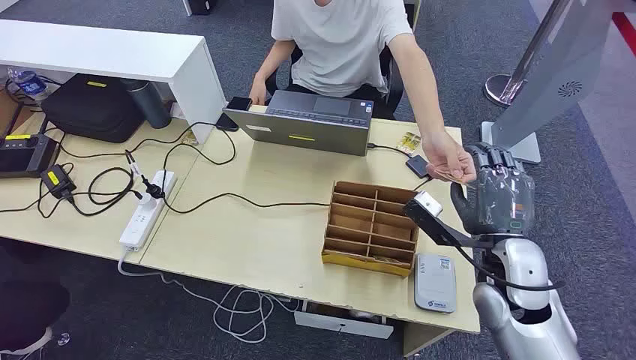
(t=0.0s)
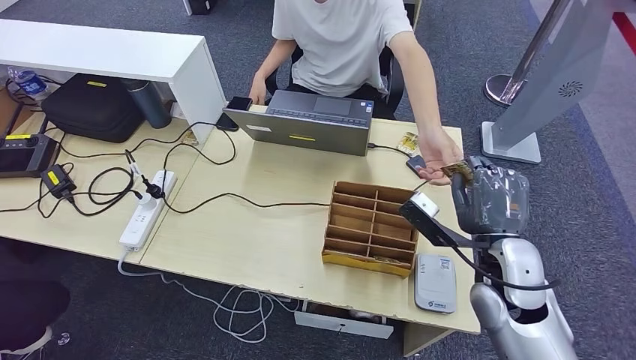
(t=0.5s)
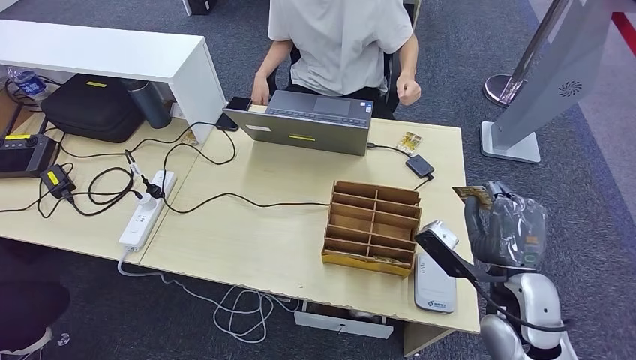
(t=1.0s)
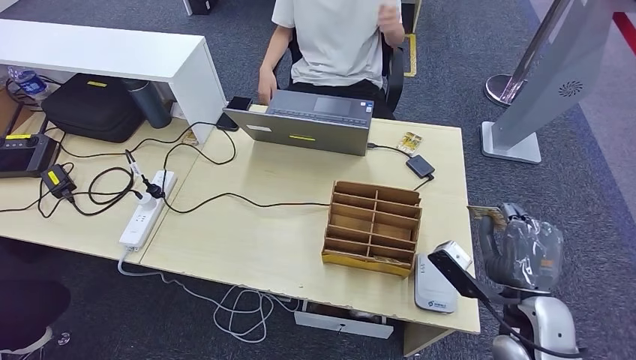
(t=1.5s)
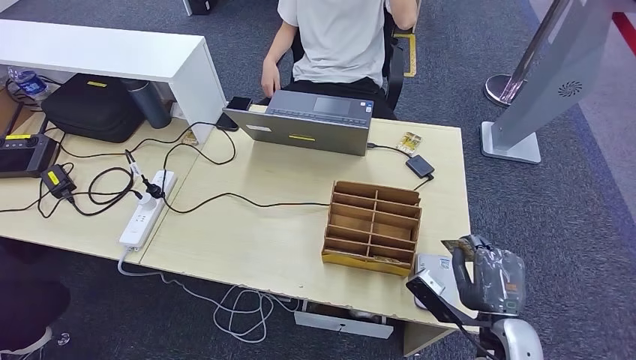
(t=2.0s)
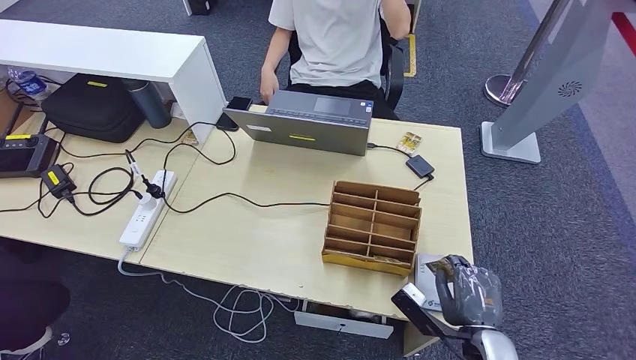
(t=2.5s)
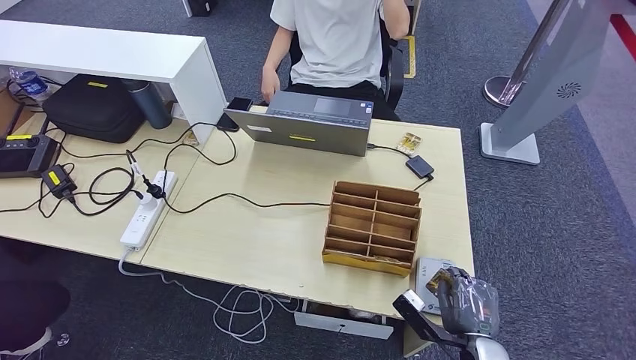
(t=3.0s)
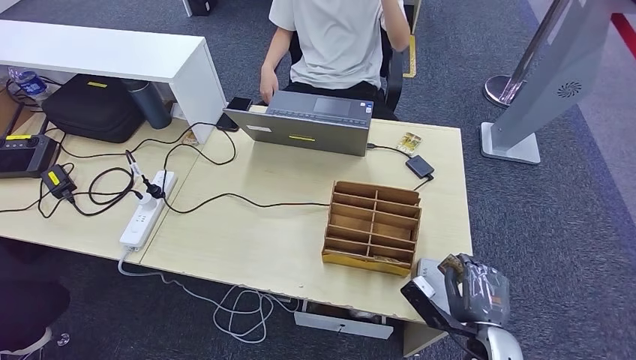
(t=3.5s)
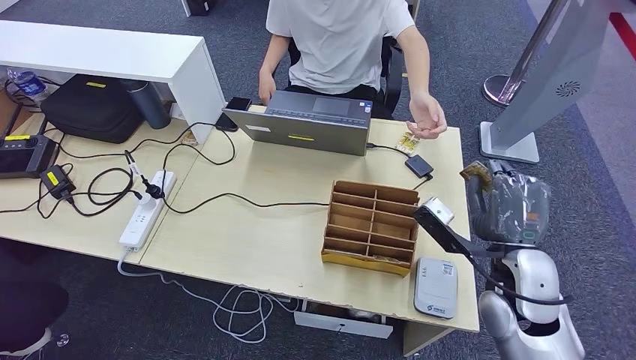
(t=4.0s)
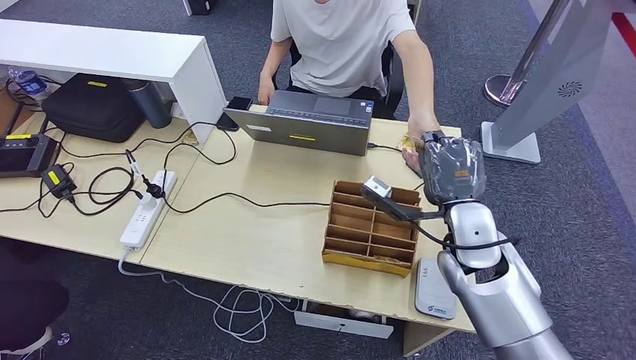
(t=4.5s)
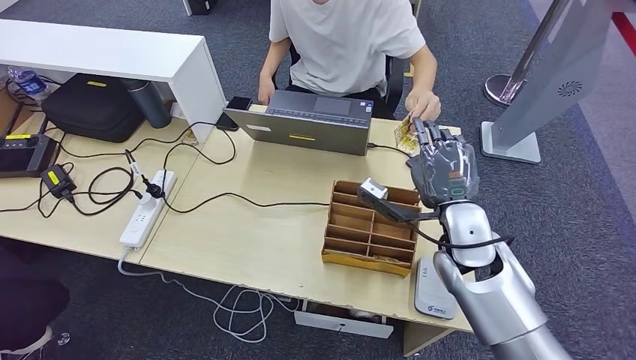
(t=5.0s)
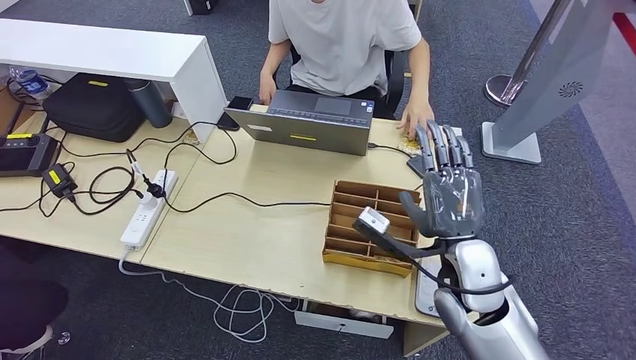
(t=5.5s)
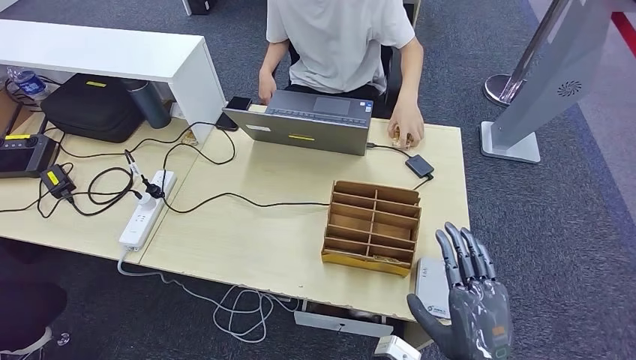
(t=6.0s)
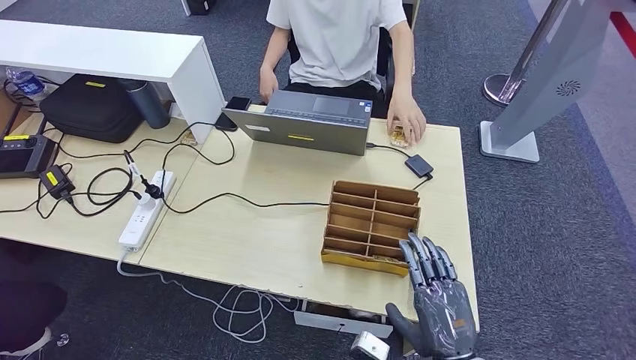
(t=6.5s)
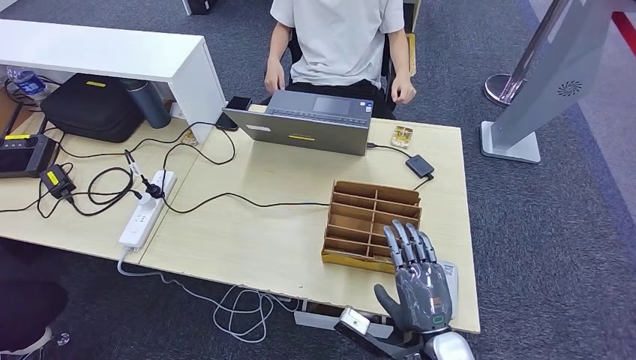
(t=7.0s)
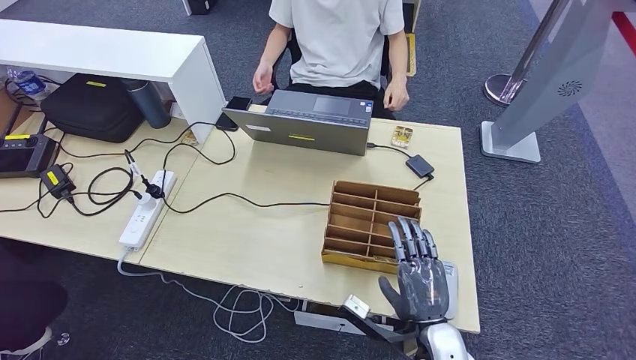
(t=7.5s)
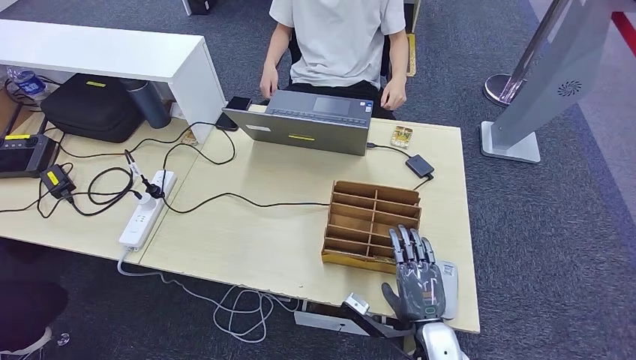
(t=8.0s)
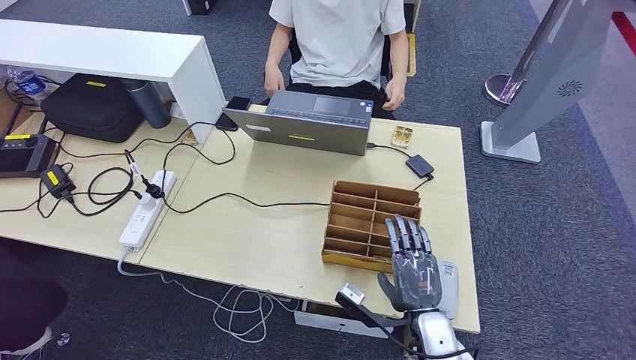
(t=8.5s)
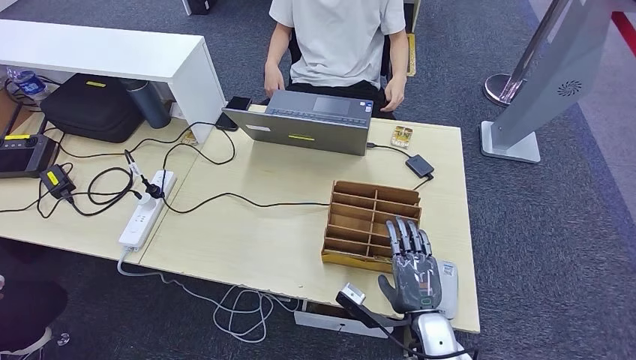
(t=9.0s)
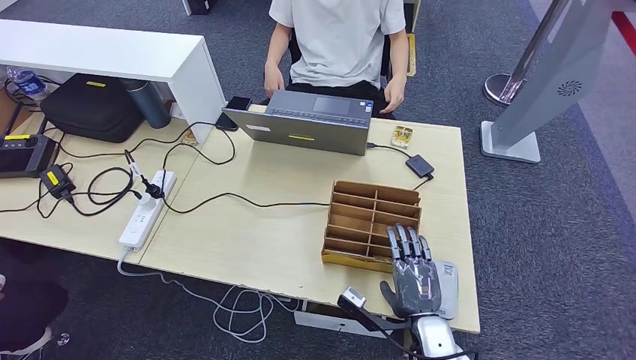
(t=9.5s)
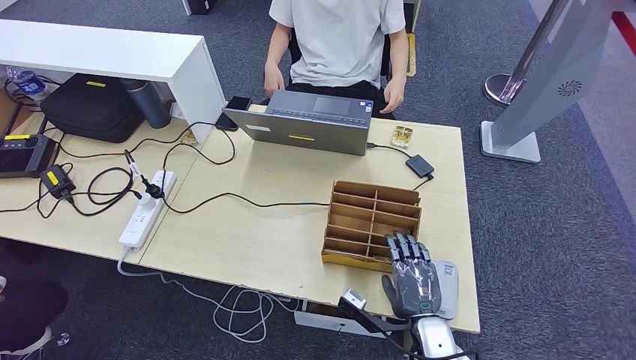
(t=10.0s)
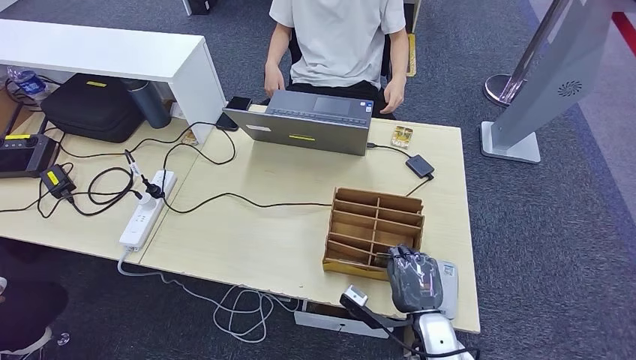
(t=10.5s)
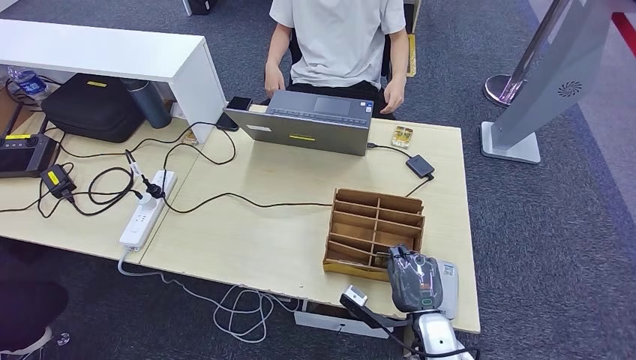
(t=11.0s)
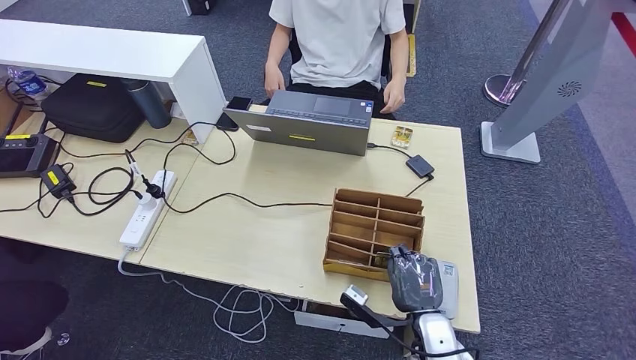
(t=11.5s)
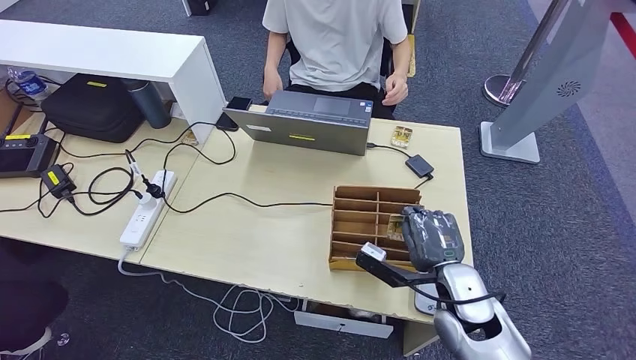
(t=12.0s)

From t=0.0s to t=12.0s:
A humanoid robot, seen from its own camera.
Step, from t=0.0s to t=1.5s: Take the ID card from the person's hand.
Step, from t=2.0s to t=4.0s: Place the ID card on the card reader.
Step, from t=4.5s to t=7.0s: Hand the ID card to the person.
From t=2.0s to t=4.0s: The right hand is displaced upward and forward by some 15 cm.
From t=4.0s to t=6.0s: The right hand is displaced backward by roughly 15 cm.
From t=6.0s to t=8.0s: The right hand heads downward and forward, covering approximately 15 cm.
From t=8.0s to t=10.0s: There are only small adjustments of the hands.
From t=10.0s to t=12.0s: The right hand travels upward and forward by about 10 cm.

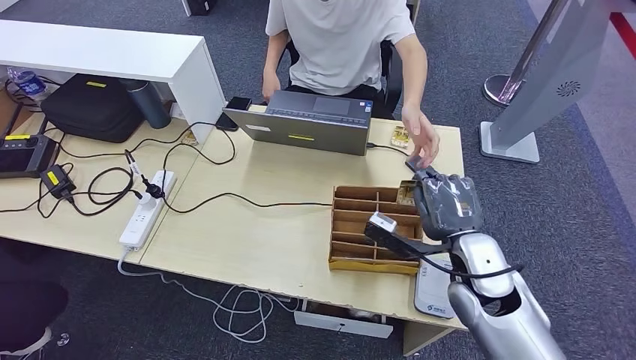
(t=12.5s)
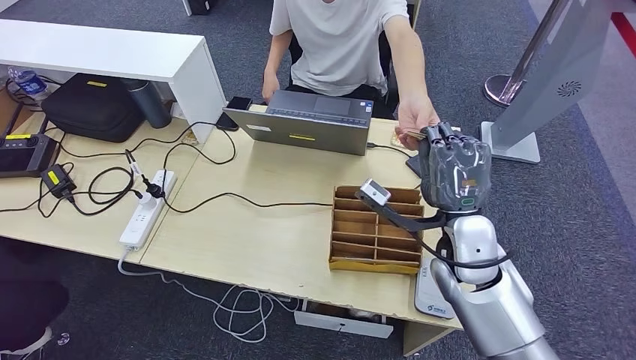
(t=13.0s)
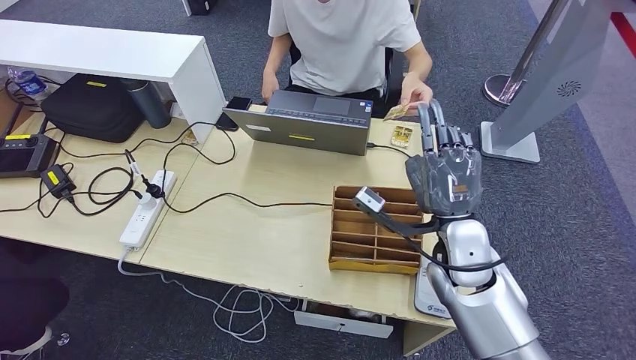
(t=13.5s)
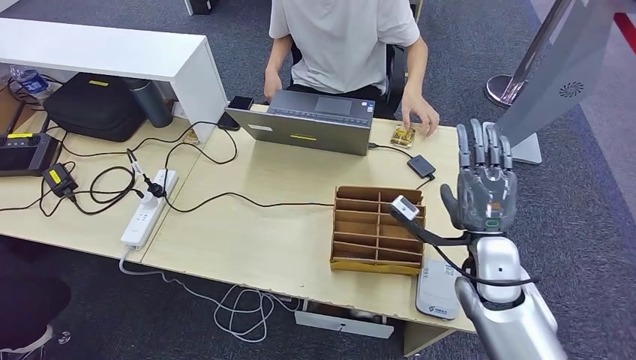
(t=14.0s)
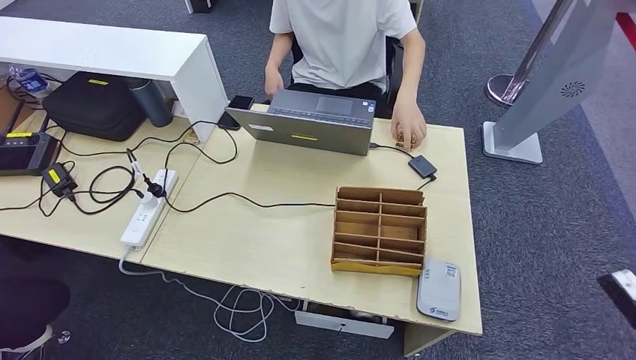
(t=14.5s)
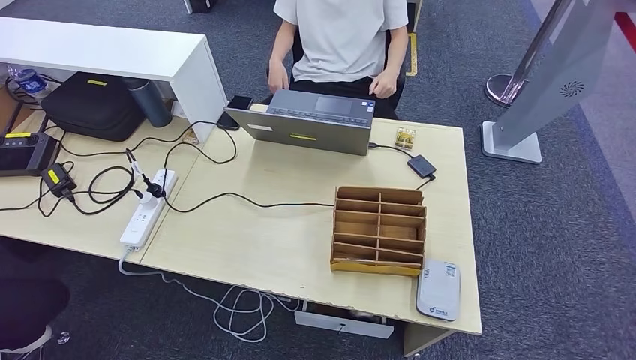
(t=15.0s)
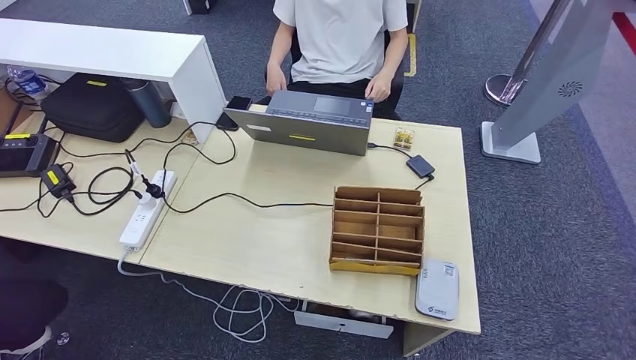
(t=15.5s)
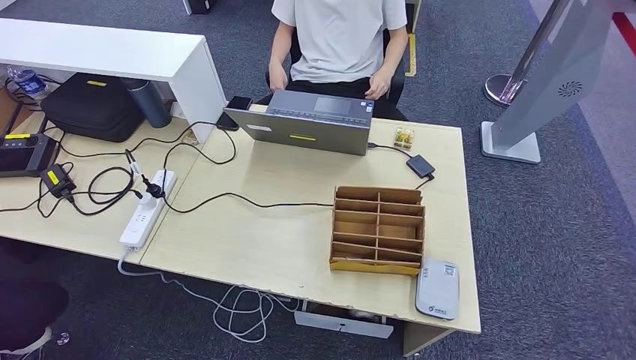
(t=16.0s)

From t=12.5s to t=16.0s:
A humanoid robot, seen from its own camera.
Step, from t=12.5s to t=16.0s: Hand the room key to the person.
From t=12.5s to t=14.5s: The right hand moves to the right and backward, about 35 cm.
From t=14.5s to t=16.0s: The right hand travels downward, to the left and backward by some 40 cm.

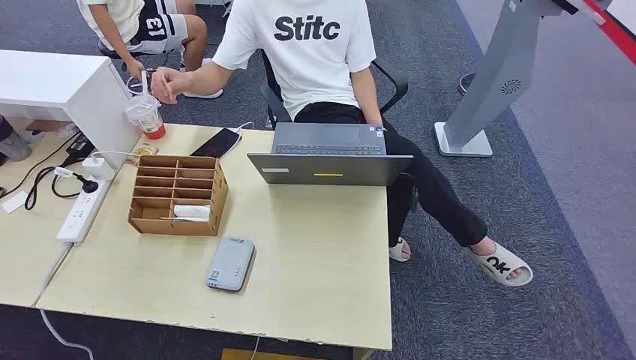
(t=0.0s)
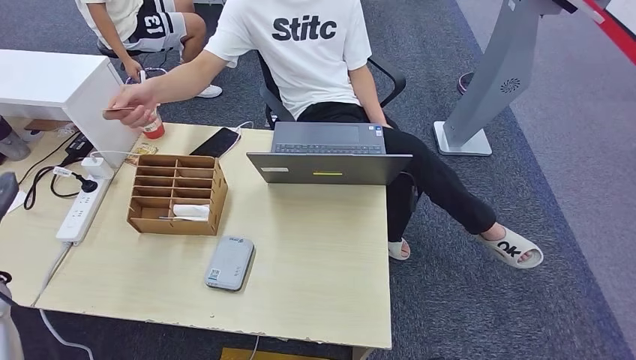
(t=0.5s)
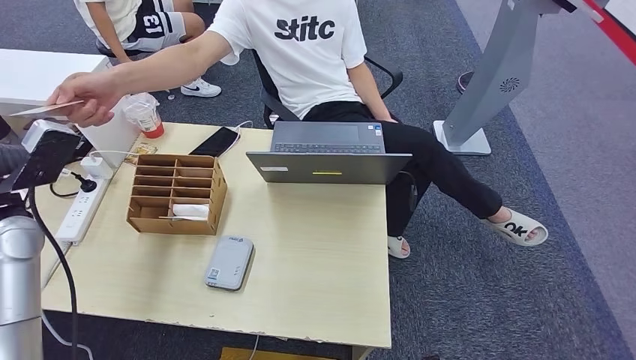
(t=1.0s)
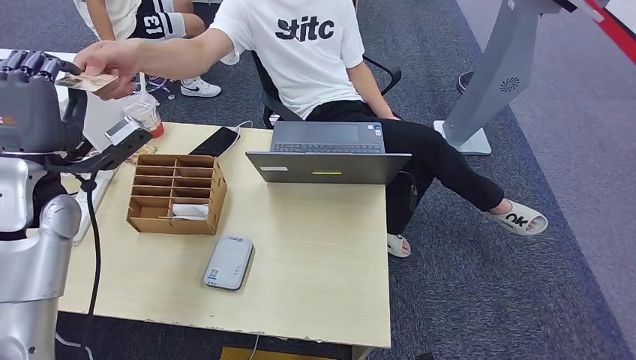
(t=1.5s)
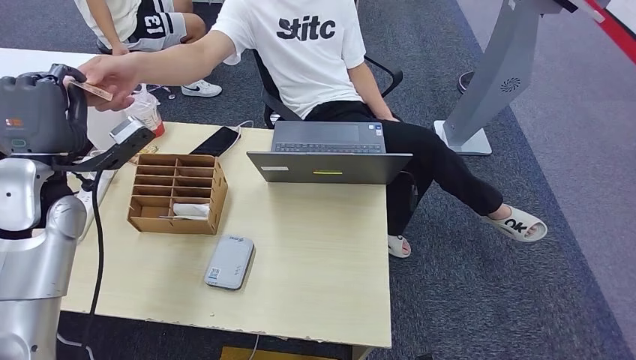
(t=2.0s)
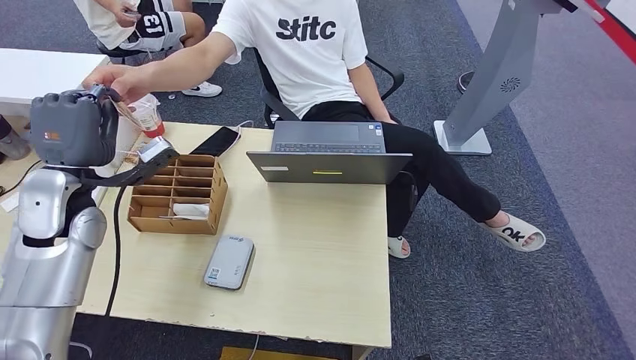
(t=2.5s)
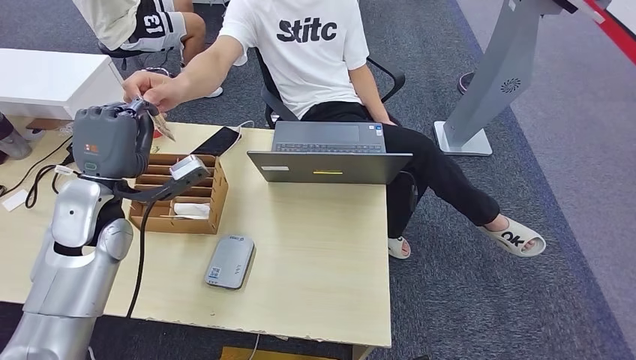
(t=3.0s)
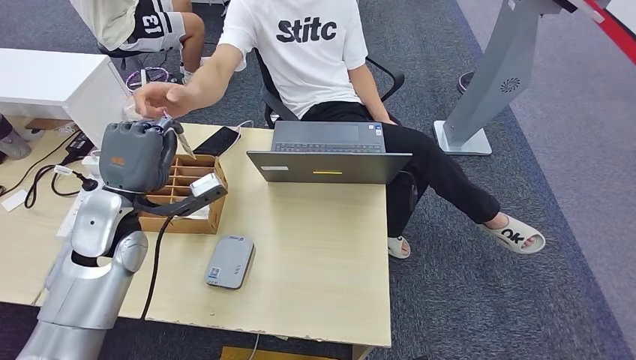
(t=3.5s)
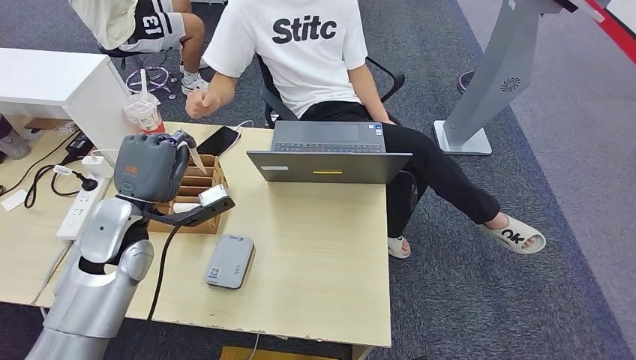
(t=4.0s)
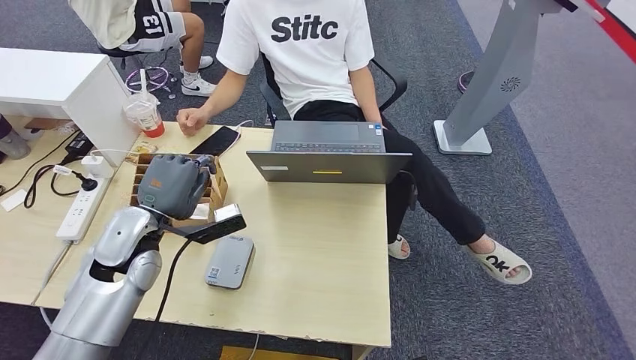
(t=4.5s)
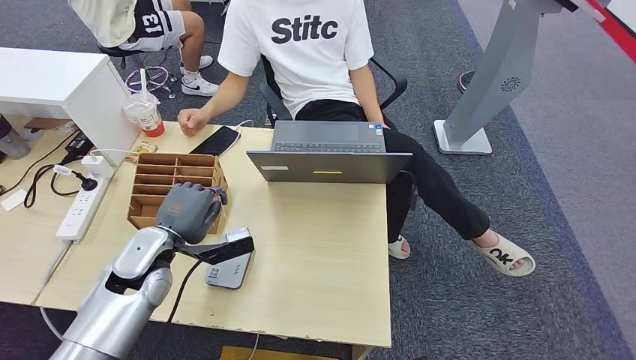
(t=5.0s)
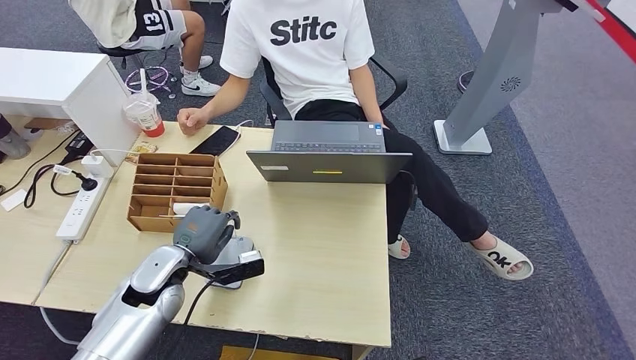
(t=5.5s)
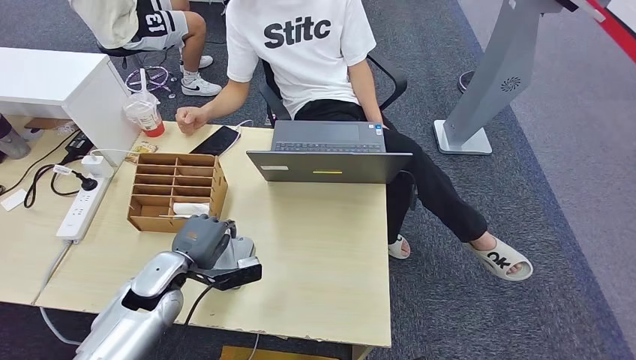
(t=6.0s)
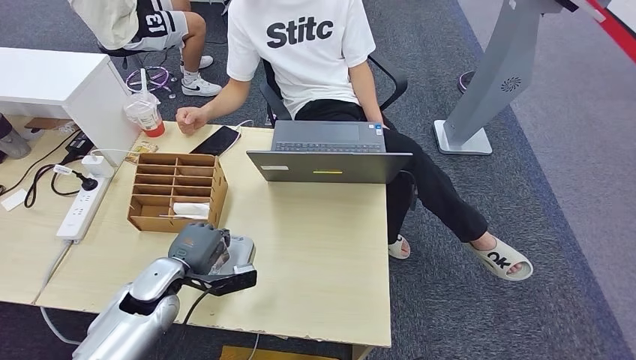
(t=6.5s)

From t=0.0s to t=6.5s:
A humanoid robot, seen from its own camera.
Step, from t=0.0s to t=3.0s: Take the ID card from the person's hand.
Step, from t=3.5s to t=6.0s: Place the ID card on the card reader.
From t=4.5s to t=6.5s: The left hand goes approximately 10 cm downward.
